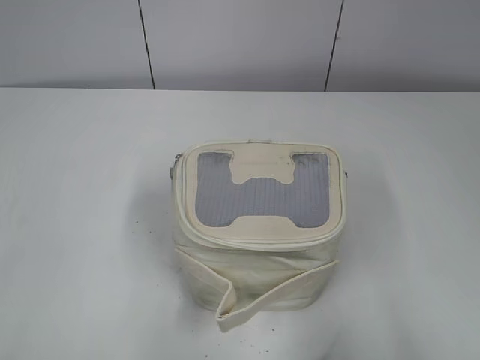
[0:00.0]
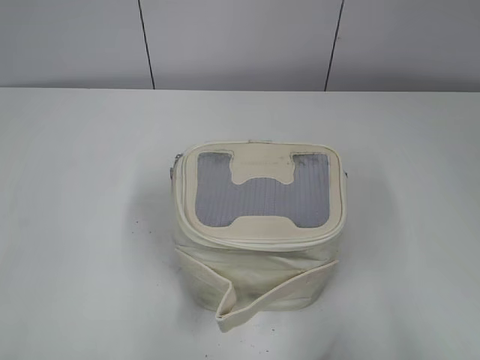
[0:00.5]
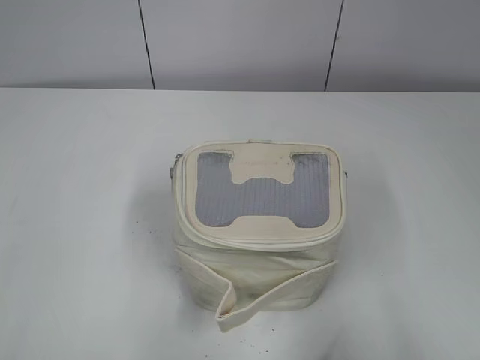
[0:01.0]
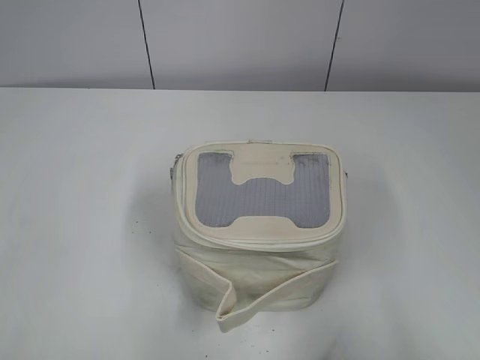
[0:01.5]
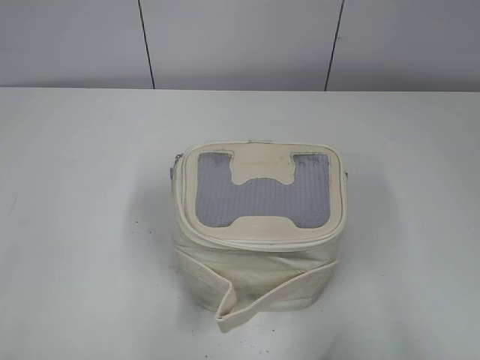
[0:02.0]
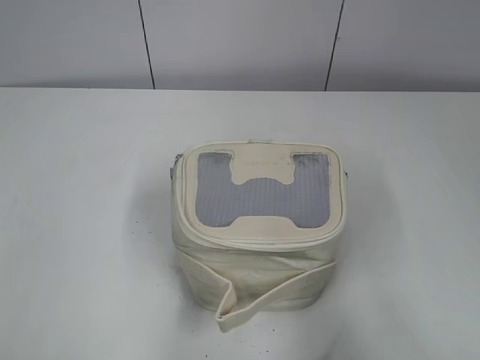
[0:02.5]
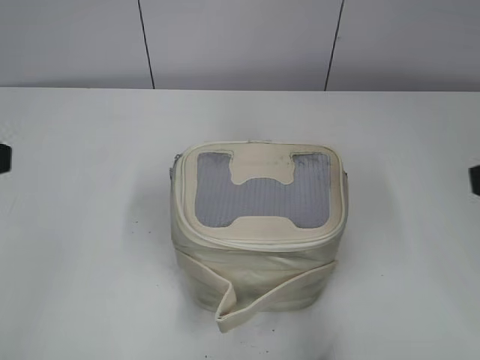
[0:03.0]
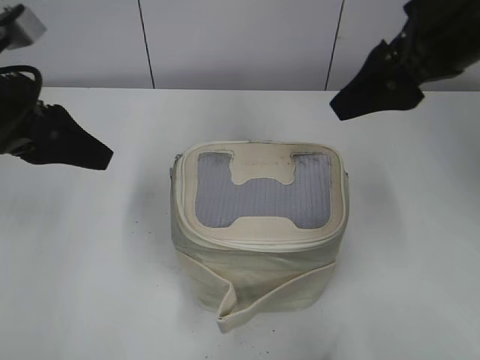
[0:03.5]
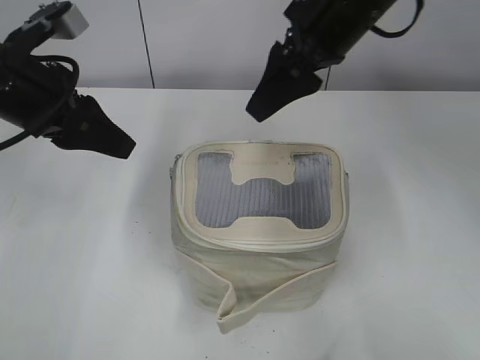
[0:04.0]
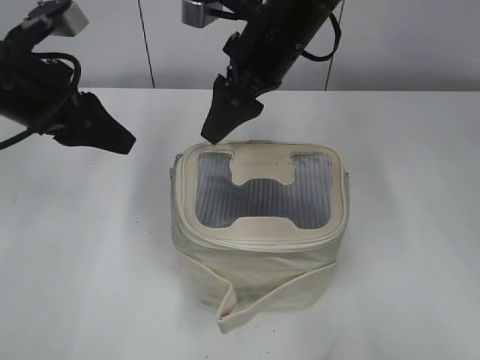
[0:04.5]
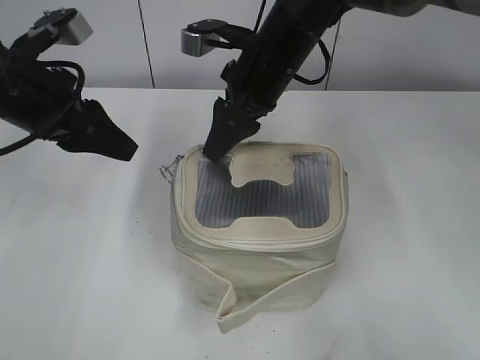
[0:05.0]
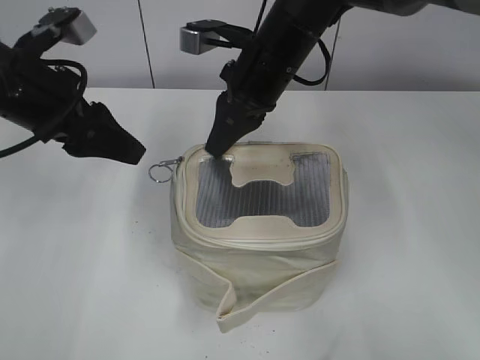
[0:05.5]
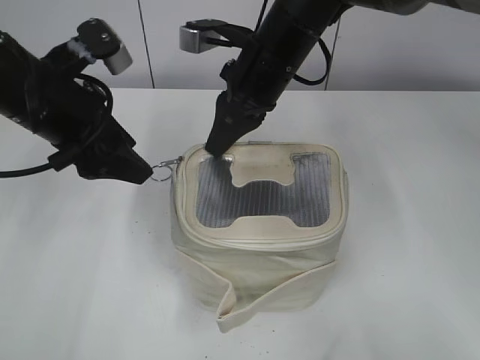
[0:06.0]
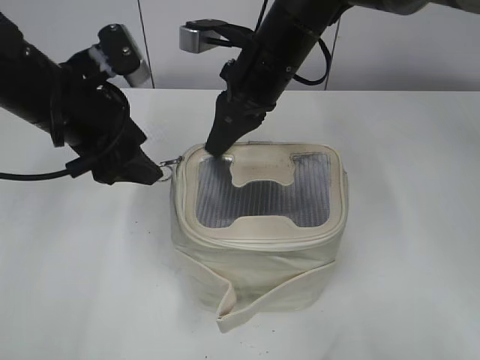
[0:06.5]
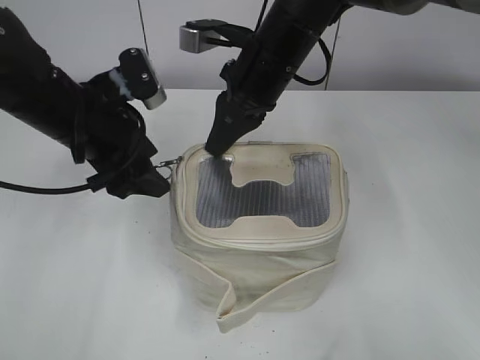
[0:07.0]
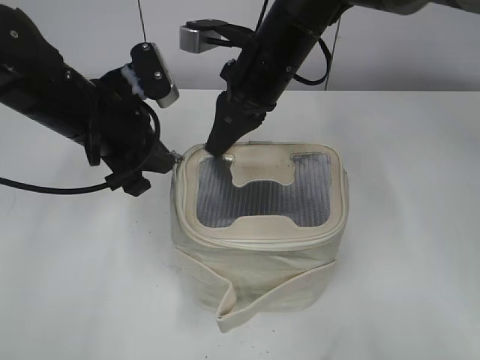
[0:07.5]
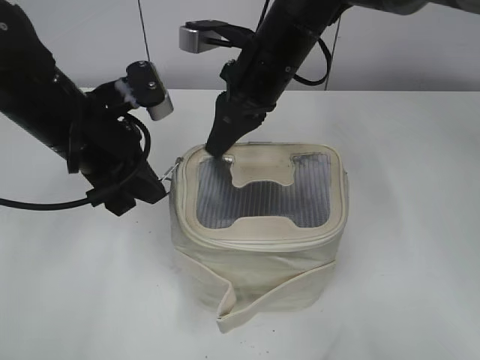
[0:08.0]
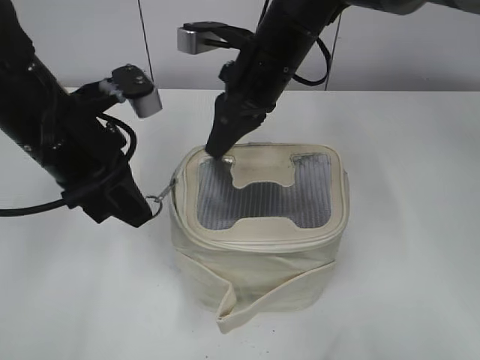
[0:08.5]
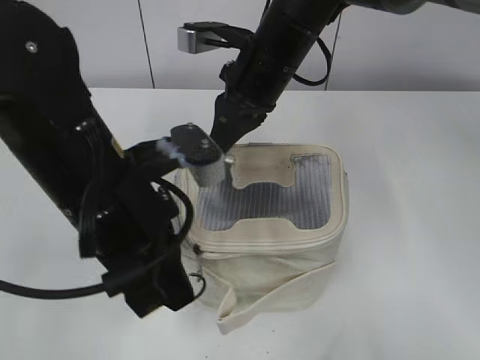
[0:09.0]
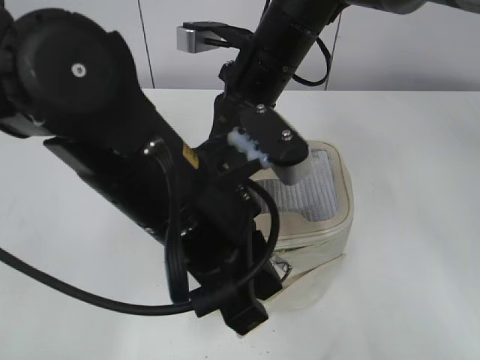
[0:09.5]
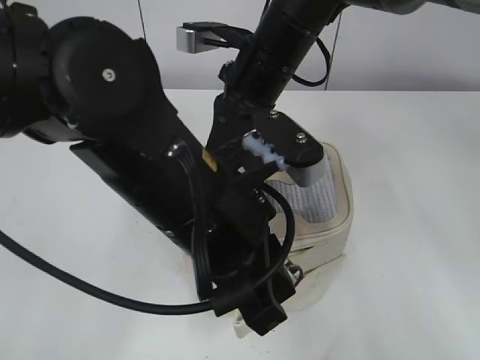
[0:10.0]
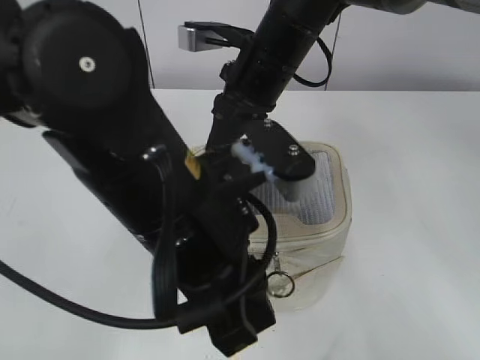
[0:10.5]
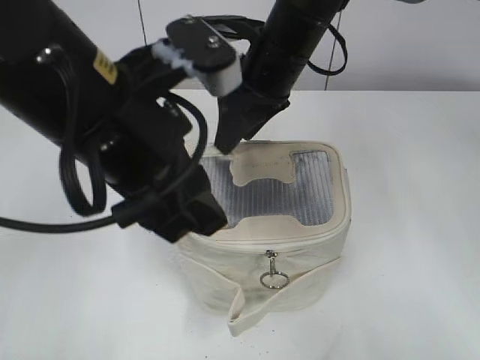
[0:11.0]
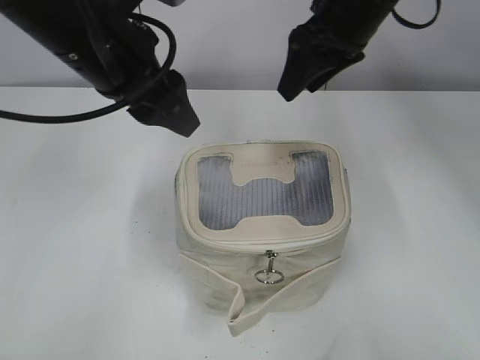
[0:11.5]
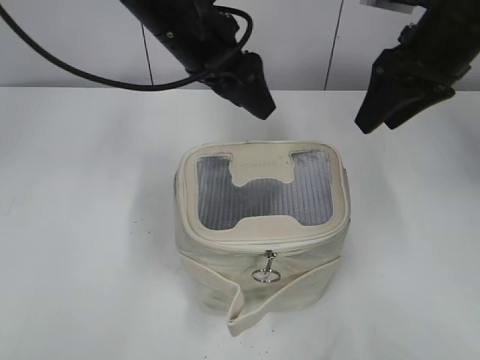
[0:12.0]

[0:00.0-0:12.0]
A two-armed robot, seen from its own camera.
Step, 0.0 to 10.5 s: Zip up the bag with your left hand.
2.0 to 4.0 s: The left gripper goes roughly 30 cm forward. Meanwhile the right gripper travels forward and to the left by about 40 cm.
4.0 to 6.0 s: The left gripper opens its fingers. Meanwhile the right gripper shifts about 10 cm downward and to the left, and closes.
6.0 to 8.0 s: The left gripper closes up.
8.0 to 10.0 s: The left gripper moves backward and to the right, about 15 cm.
10.0 to 12.0 s: The left gripper goes about 20 cm forward, and opens. The right gripper moves to the right, about 15 cm, and opens its fingers.

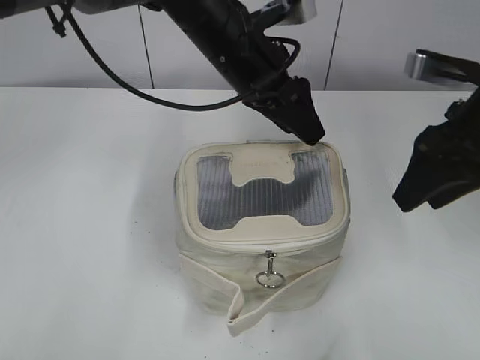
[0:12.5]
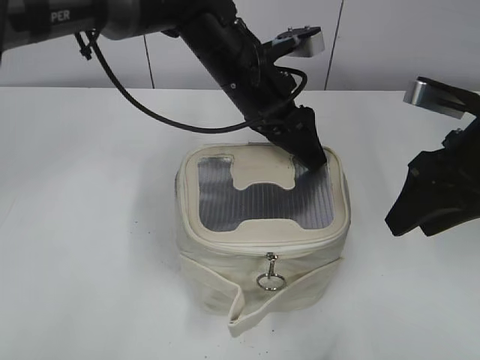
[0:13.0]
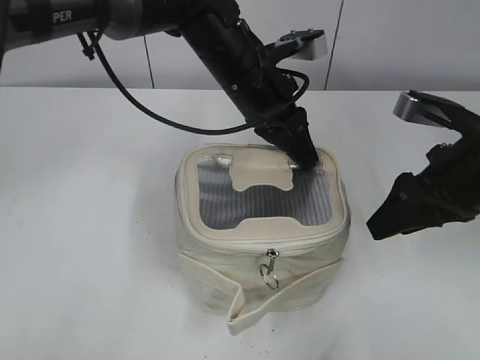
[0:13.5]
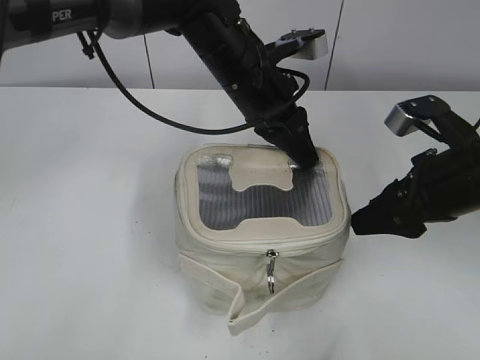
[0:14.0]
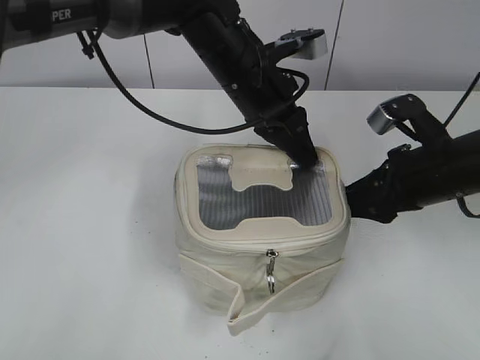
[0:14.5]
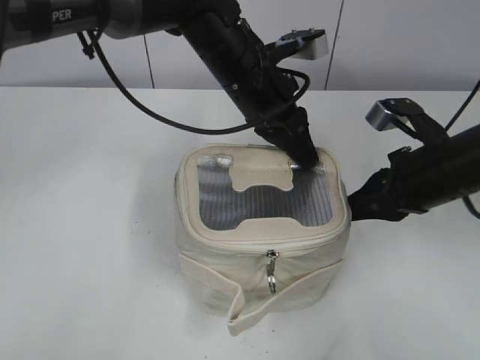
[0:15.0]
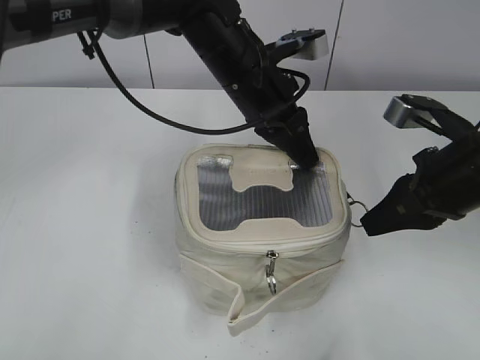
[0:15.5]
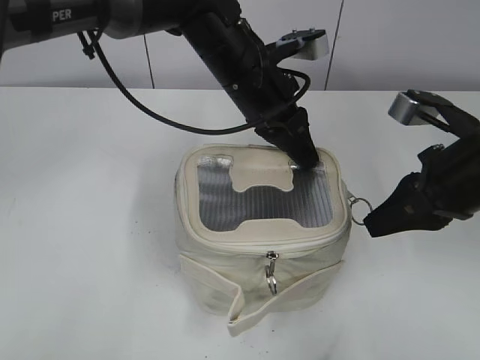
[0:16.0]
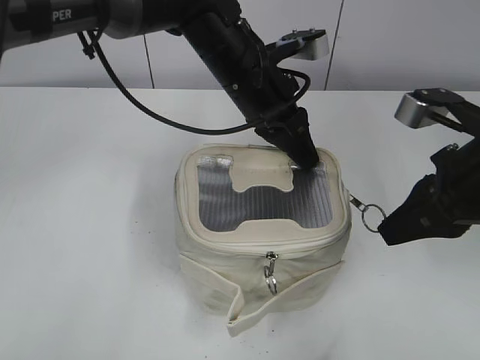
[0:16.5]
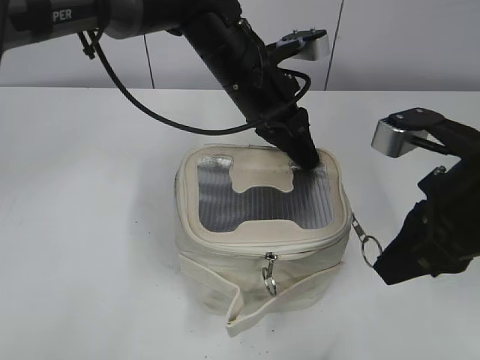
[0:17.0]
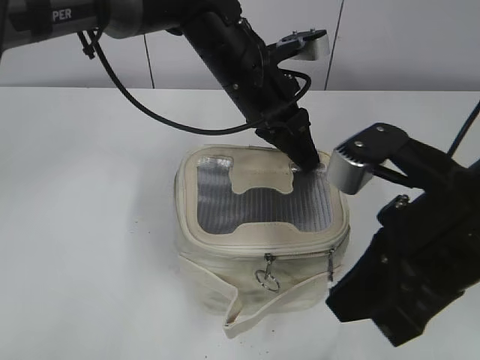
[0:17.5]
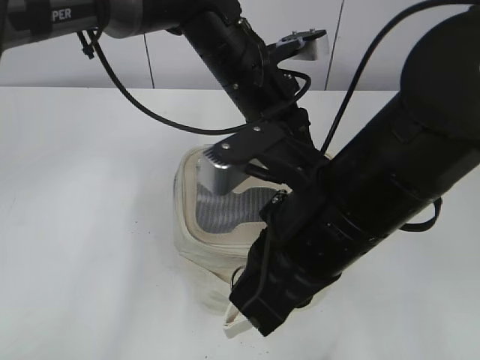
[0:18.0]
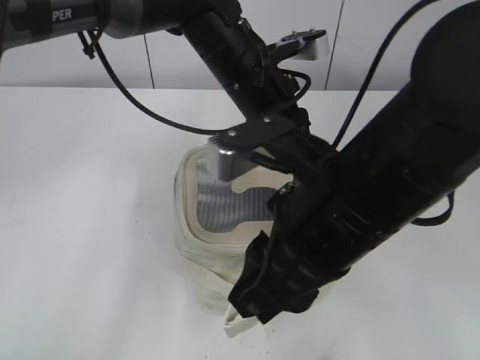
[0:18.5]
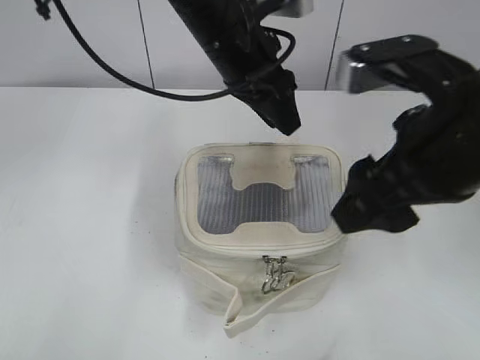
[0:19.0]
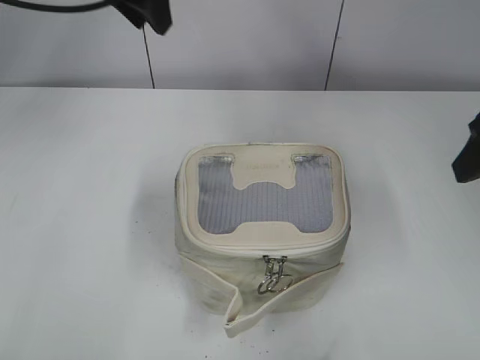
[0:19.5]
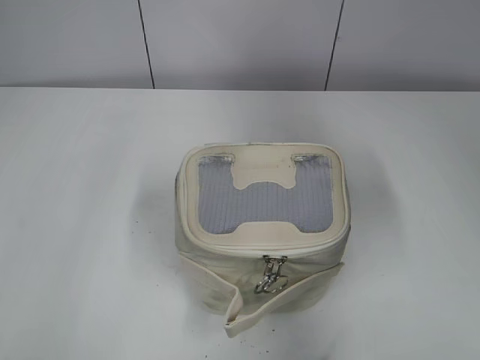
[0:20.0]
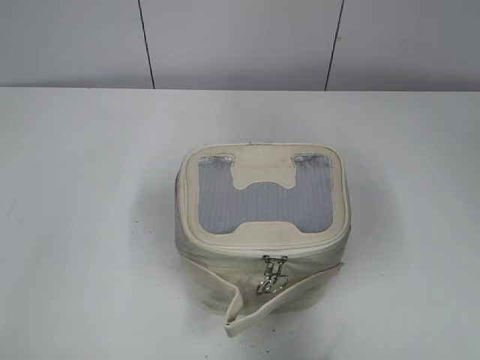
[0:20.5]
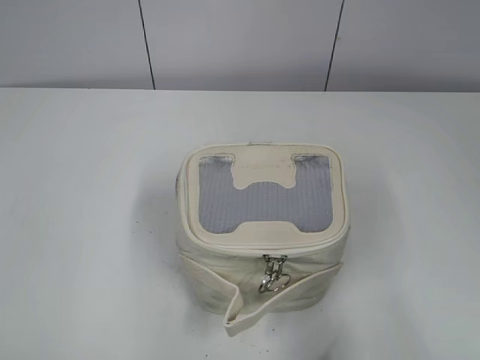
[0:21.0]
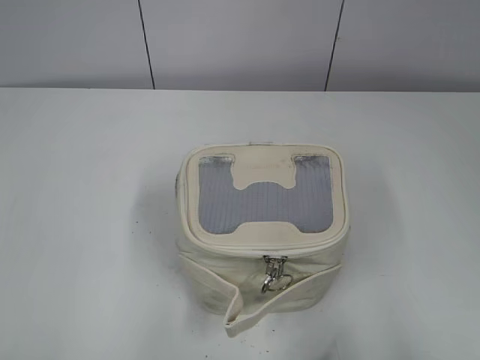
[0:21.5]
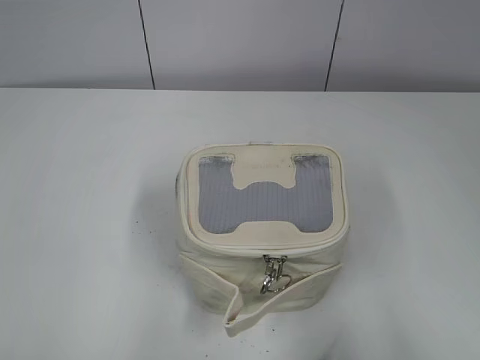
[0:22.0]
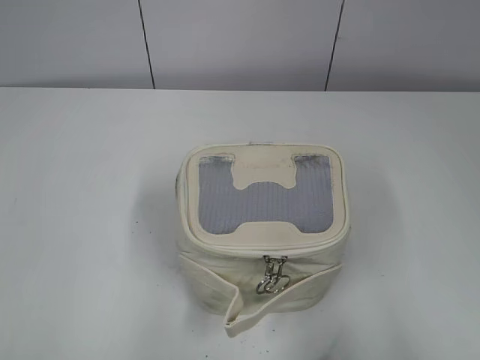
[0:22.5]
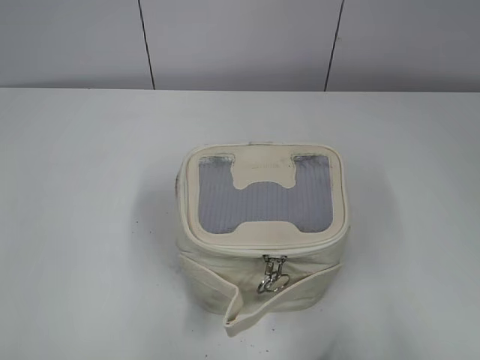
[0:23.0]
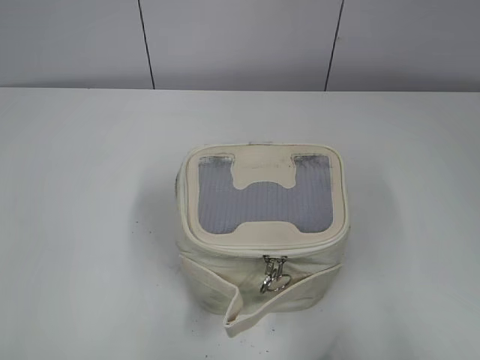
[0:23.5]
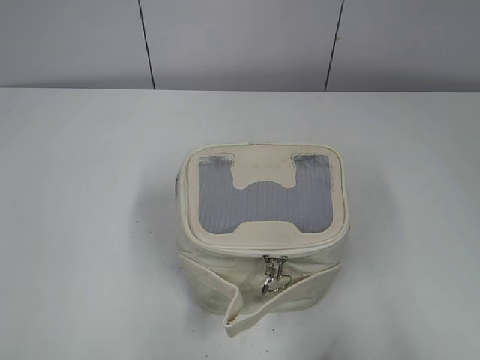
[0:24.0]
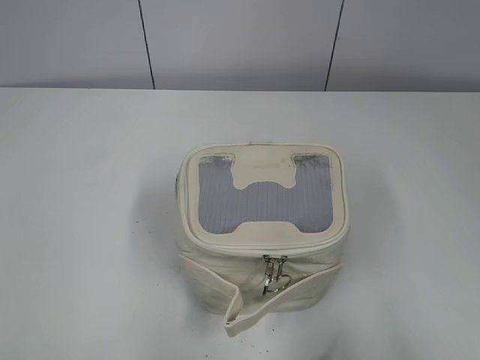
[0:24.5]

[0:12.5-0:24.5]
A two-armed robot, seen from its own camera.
Step, 12.5 to 18.5 s: Zip up the bag with your right hand.
12.5 to 14.5 s: The left gripper closes. Meanwhile the right gripper goes approximately 10 cm downward.
14.5 to 16.5 s: The right gripper travels upward by some 5 cm, and closes its fingers.
16.5 to 18.5 s: The right gripper goes approximately 15 cm to the left and backward, and opens.
18.5 to 20.5 s: The right gripper travels to the right and upward by roughly 25 cm, and opens; the left gripper travels to the left, backward and upward by about 40 cm, and opens its fingers.
20.5 to 22.5 s: The grippers both shift backward by about 15 cm.

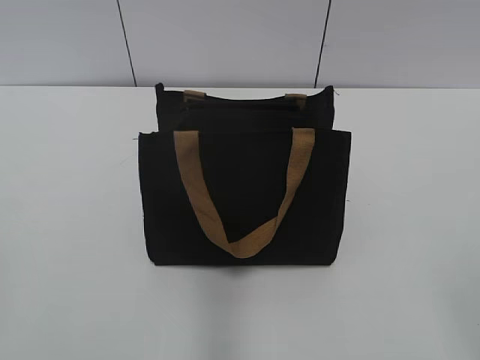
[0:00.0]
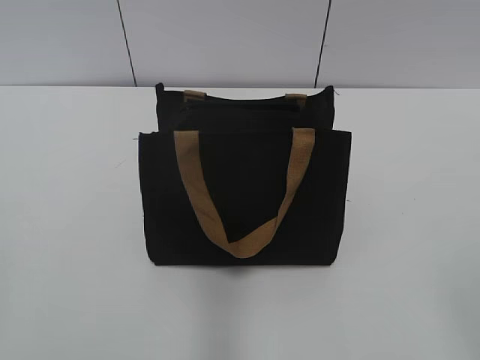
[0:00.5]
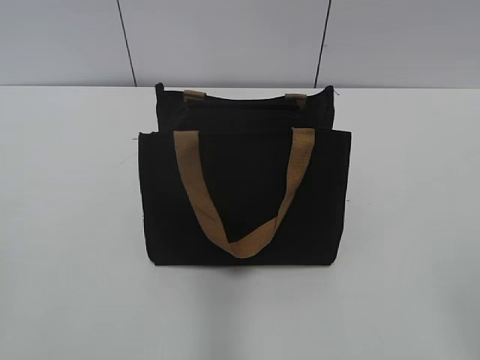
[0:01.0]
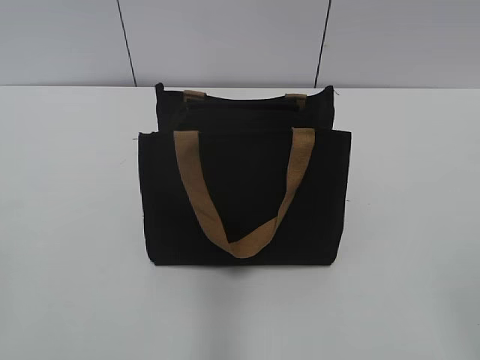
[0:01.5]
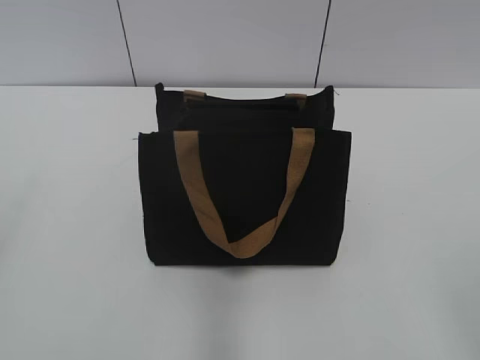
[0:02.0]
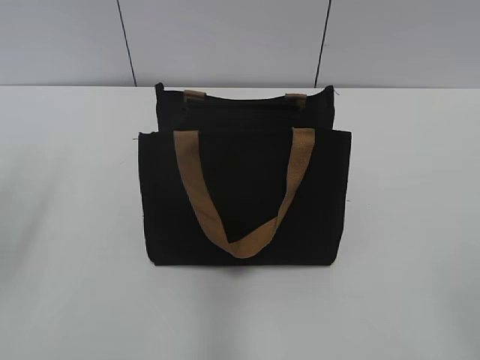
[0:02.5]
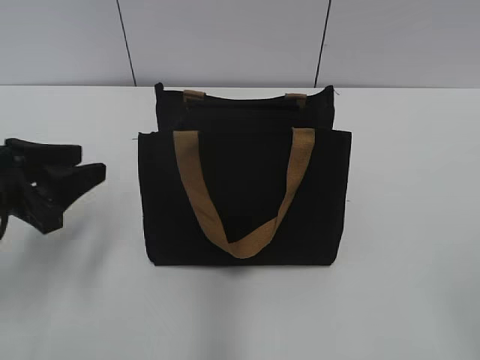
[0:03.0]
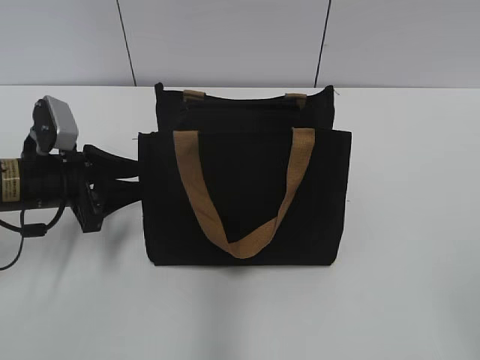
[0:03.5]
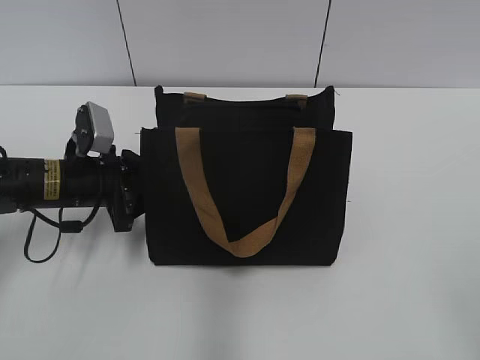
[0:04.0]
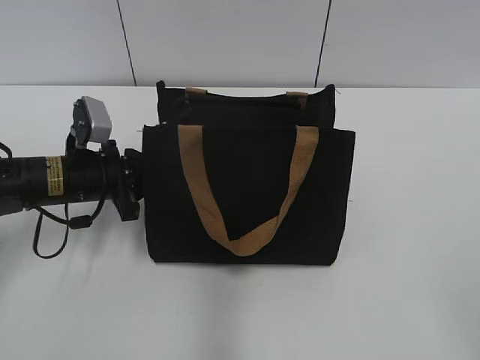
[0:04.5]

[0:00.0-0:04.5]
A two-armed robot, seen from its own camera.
2.0 to 4.5 s: The left gripper shifts about 40 cm forward, downward and to the right, and closes up.
